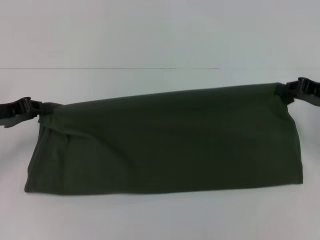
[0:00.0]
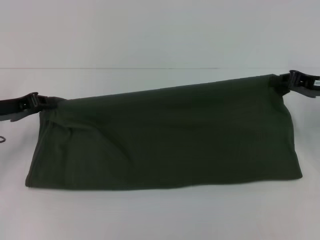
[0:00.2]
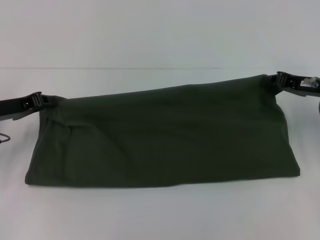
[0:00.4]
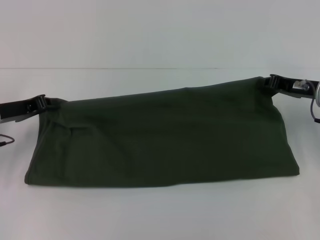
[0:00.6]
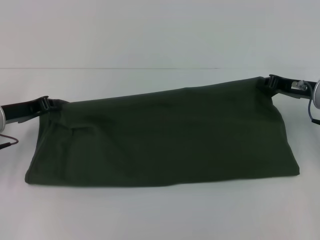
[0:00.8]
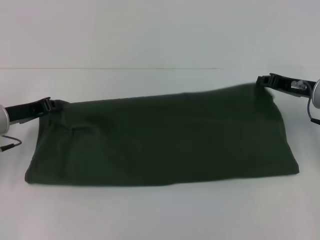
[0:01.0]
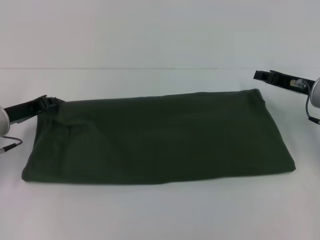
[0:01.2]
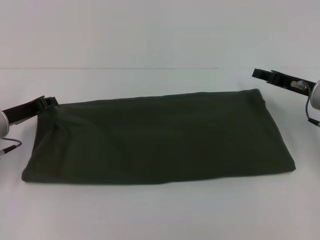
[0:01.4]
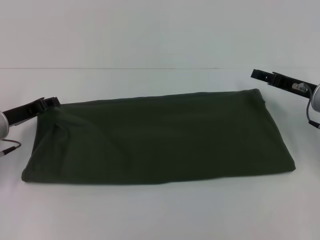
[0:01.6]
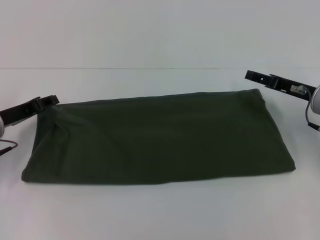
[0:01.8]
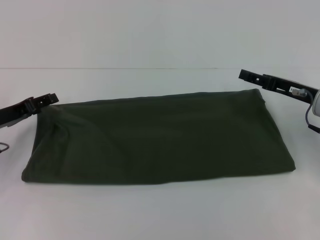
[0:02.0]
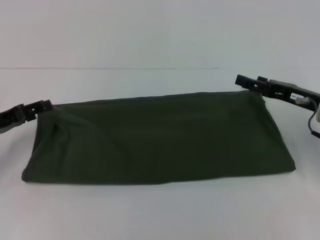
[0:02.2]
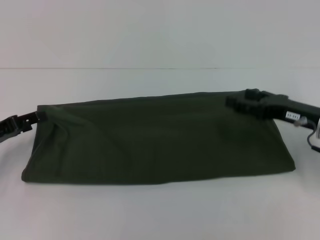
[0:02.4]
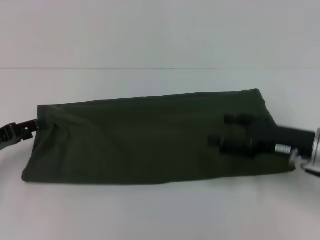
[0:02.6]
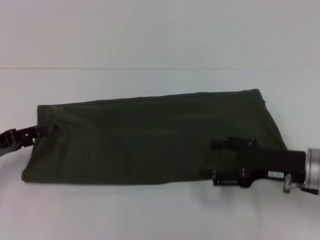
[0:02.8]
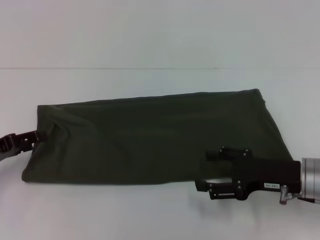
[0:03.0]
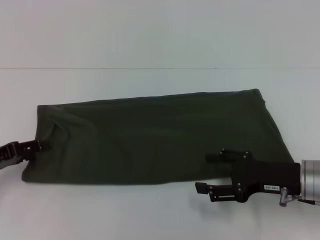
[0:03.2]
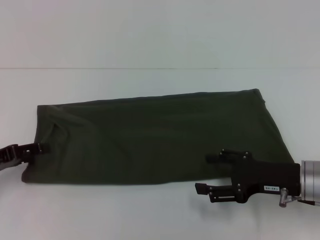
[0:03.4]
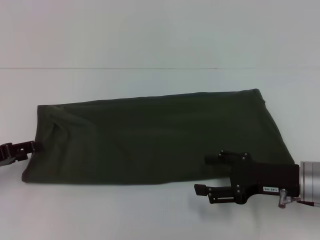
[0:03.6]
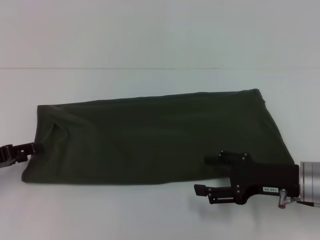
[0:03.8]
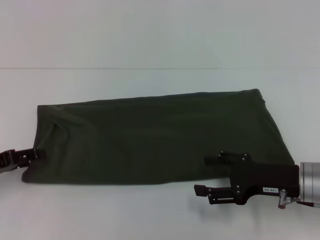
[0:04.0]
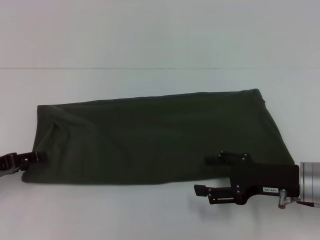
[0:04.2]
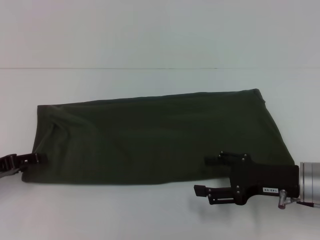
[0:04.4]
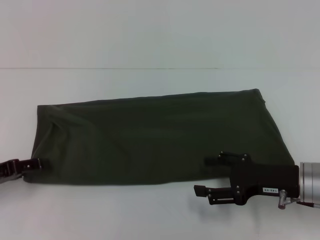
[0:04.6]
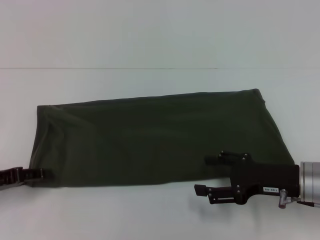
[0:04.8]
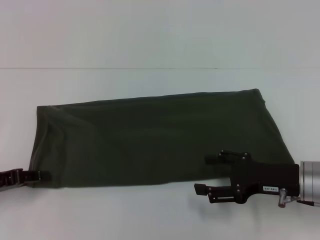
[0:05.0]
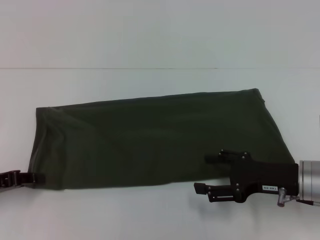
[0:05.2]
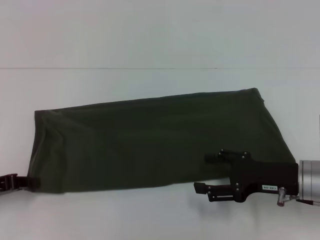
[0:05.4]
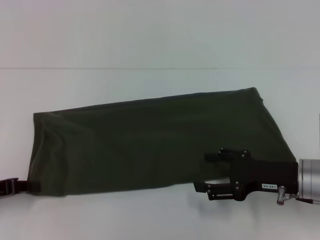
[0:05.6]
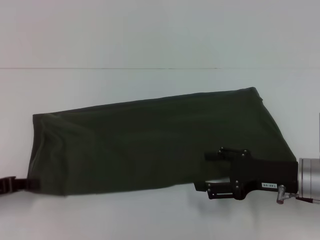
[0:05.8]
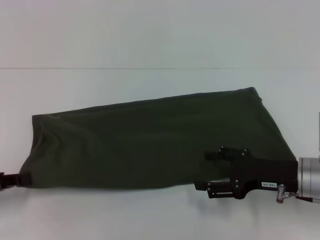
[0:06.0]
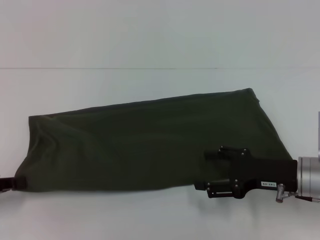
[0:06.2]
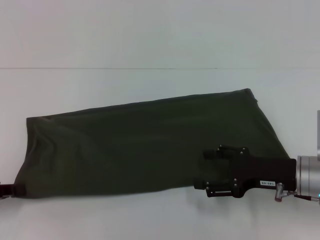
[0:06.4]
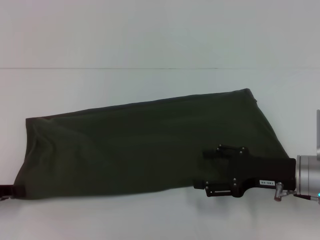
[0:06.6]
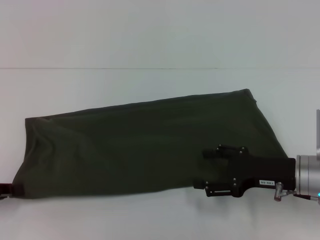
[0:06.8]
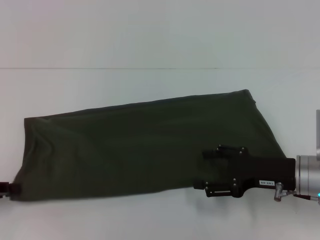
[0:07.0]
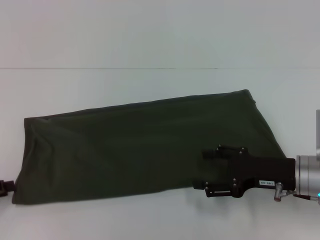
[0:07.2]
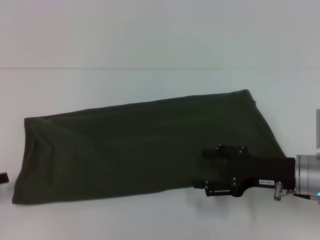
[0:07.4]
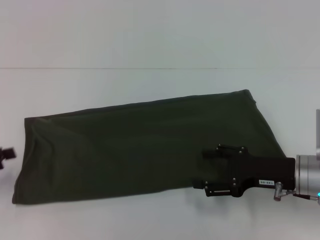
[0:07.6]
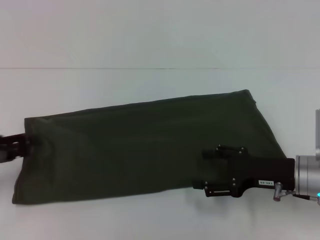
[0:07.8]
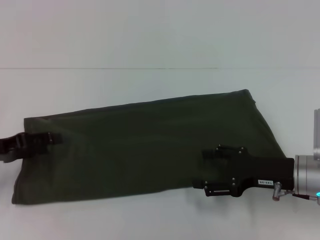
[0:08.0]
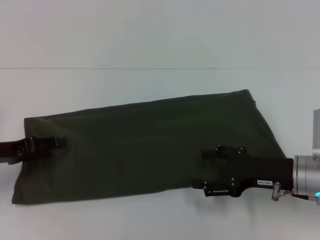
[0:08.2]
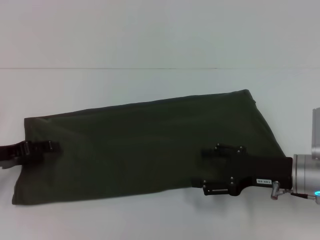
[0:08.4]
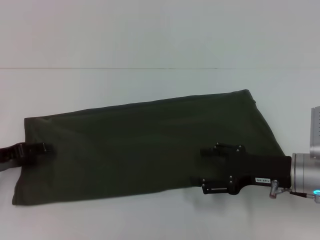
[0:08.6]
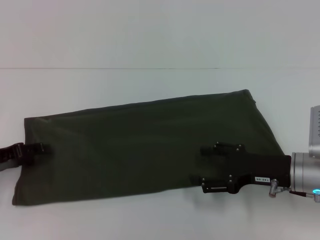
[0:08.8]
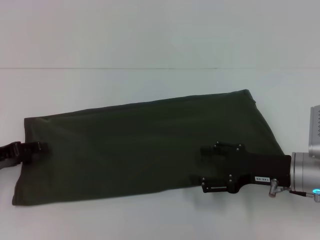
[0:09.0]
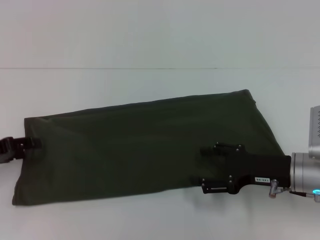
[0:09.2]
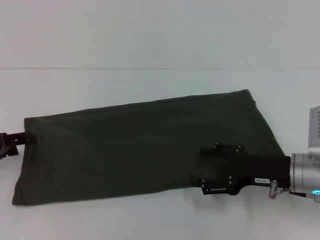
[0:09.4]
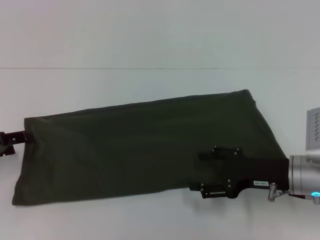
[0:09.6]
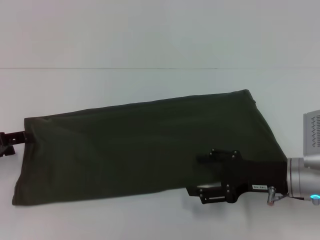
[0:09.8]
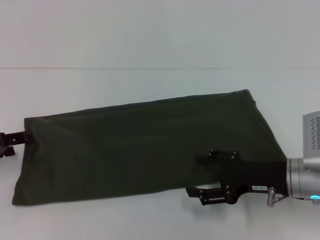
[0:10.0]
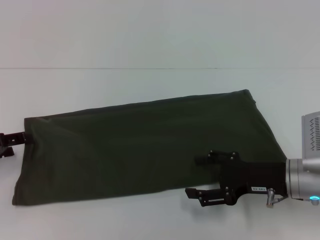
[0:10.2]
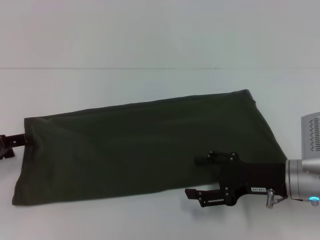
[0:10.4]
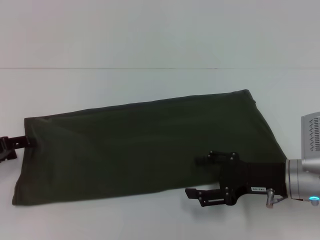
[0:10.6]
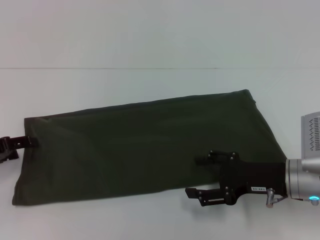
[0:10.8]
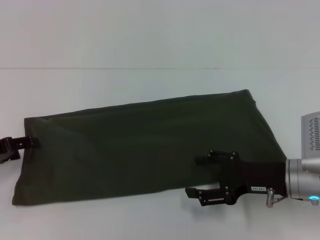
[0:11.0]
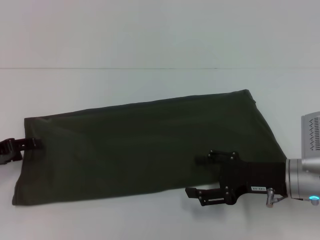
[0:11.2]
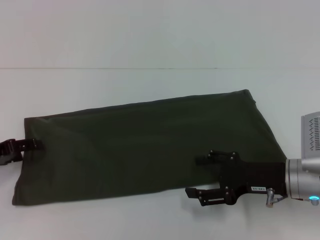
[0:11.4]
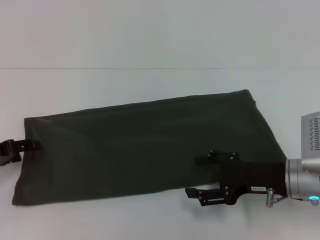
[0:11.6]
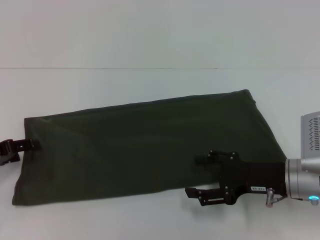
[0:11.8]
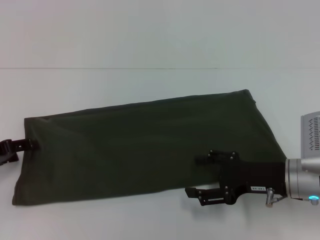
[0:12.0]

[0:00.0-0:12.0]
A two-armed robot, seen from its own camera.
Step, 0:00.0 to 0:01.6: Fold the clothes with your right hand.
0:00.0 to 0:01.6: The right gripper moves some 5 cm, and opens; the left gripper ends up about 5 cm from where it was.
0:01.6 to 0:03.0: The left gripper heads backward and to the left, covering roughly 10 cm, and opens its fingers. Meanwhile the right gripper shifts some 10 cm backward.
0:03.0 to 0:04.4: There are only small adjustments of the grippers.
0:04.4 to 0:06.0: The left gripper closes its fingers.
0:06.0 to 0:07.6: The left gripper opens up.
0:07.6 to 0:09.0: The left gripper travels forward by approximately 5 cm.
0:09.0 to 0:12.0: The grippers make only small movements.

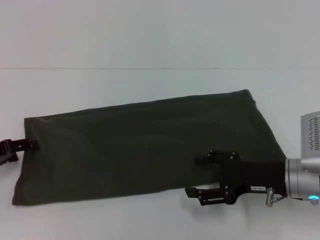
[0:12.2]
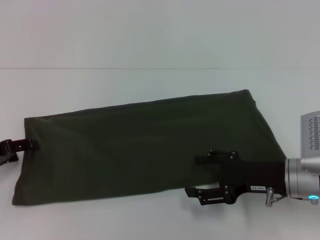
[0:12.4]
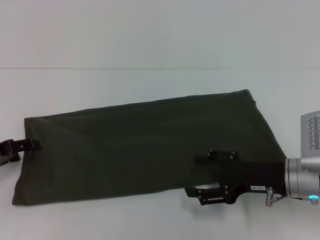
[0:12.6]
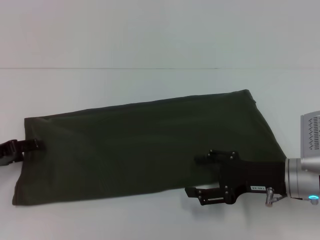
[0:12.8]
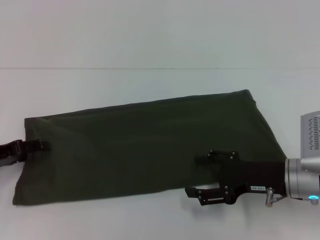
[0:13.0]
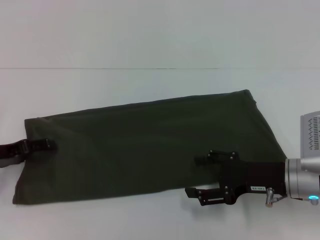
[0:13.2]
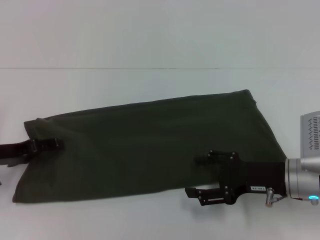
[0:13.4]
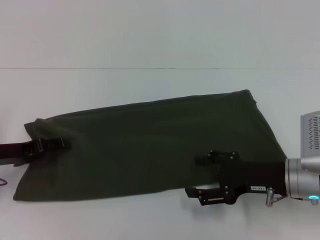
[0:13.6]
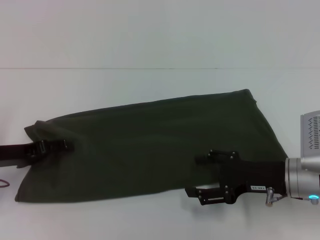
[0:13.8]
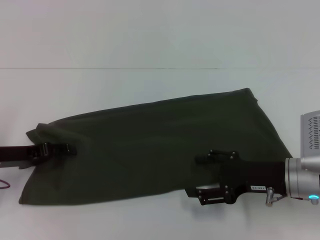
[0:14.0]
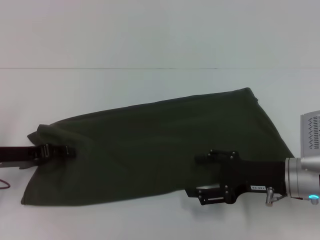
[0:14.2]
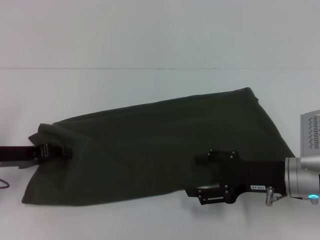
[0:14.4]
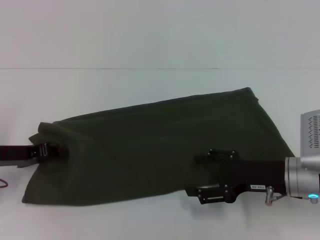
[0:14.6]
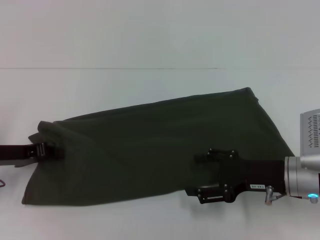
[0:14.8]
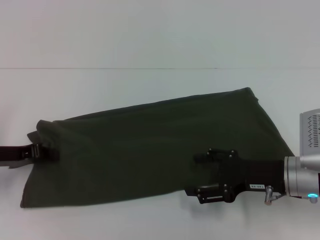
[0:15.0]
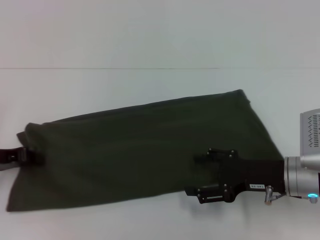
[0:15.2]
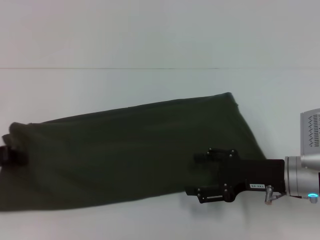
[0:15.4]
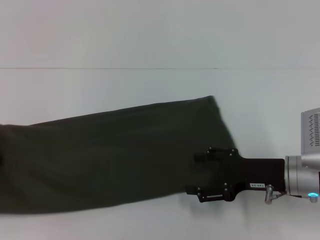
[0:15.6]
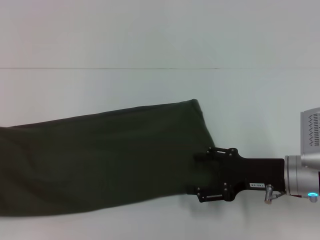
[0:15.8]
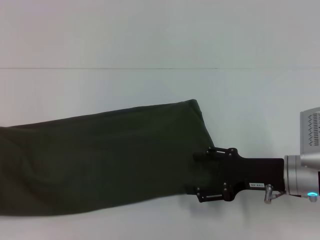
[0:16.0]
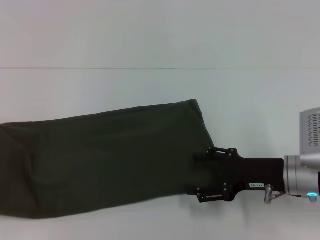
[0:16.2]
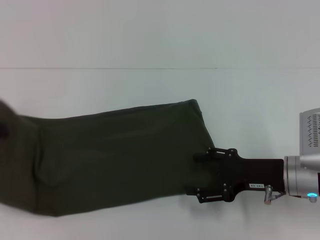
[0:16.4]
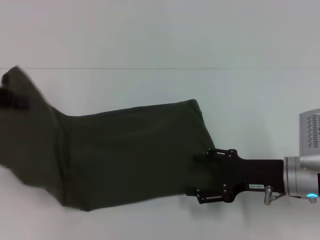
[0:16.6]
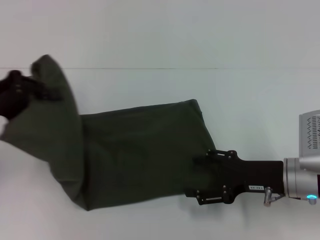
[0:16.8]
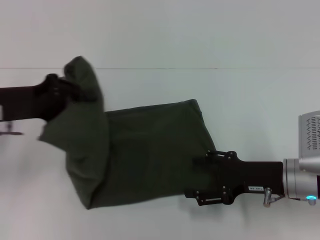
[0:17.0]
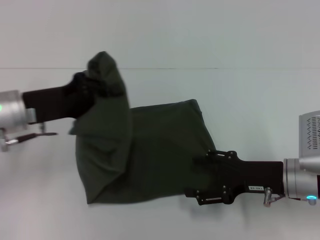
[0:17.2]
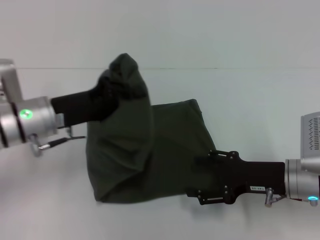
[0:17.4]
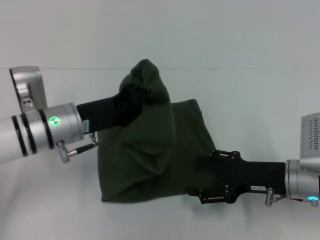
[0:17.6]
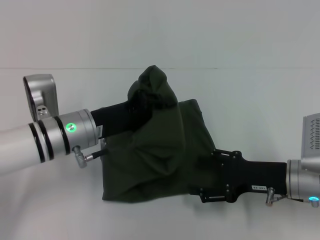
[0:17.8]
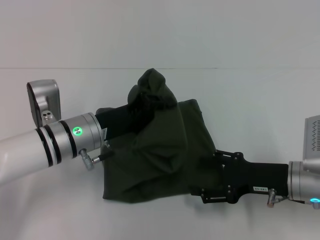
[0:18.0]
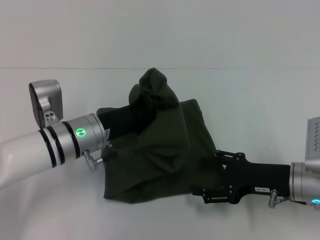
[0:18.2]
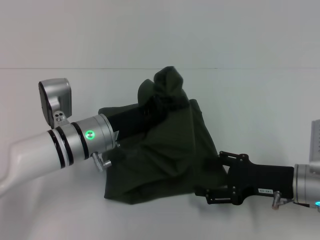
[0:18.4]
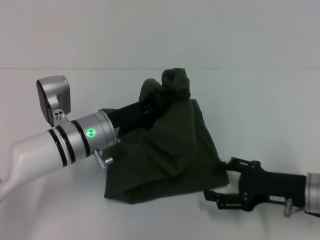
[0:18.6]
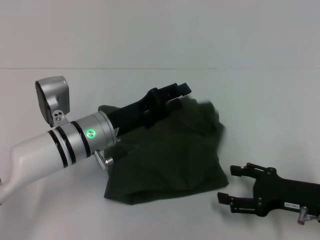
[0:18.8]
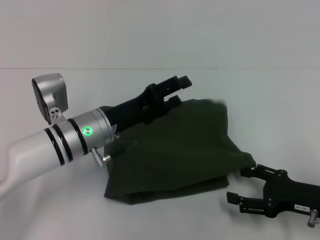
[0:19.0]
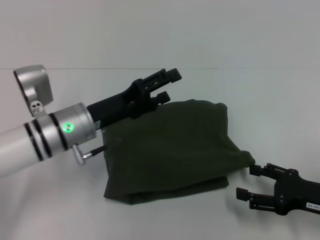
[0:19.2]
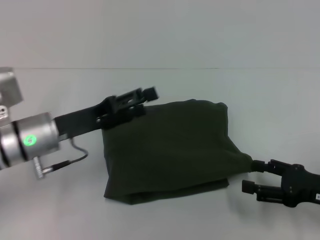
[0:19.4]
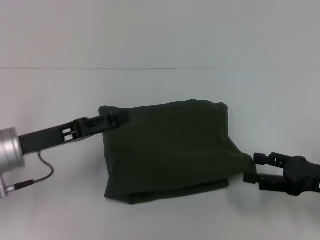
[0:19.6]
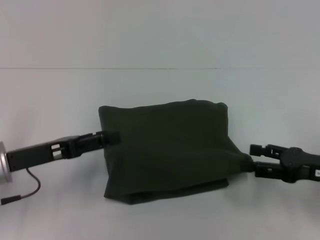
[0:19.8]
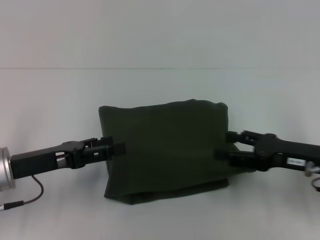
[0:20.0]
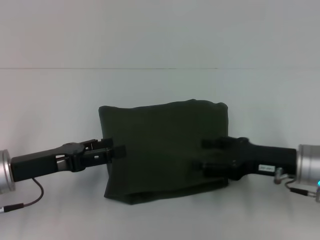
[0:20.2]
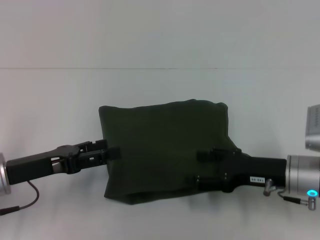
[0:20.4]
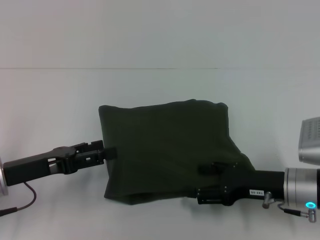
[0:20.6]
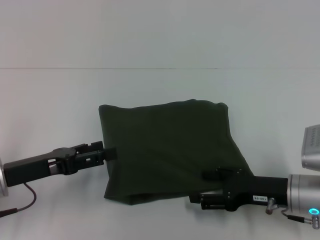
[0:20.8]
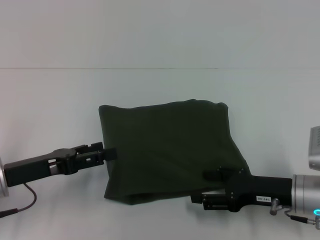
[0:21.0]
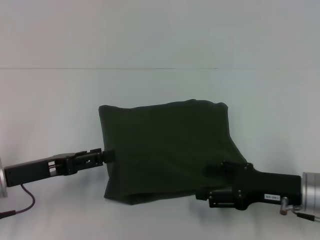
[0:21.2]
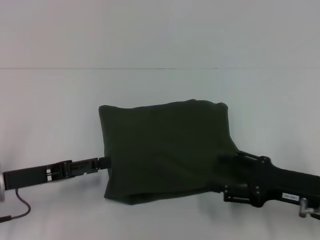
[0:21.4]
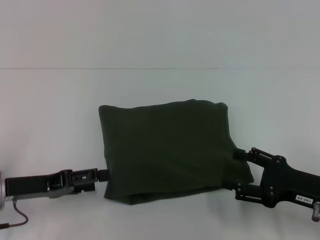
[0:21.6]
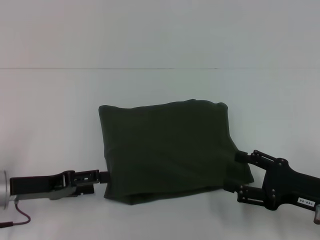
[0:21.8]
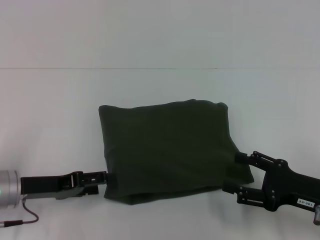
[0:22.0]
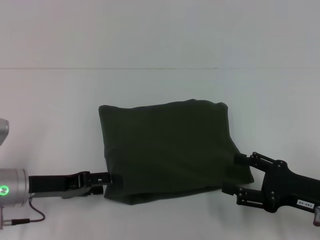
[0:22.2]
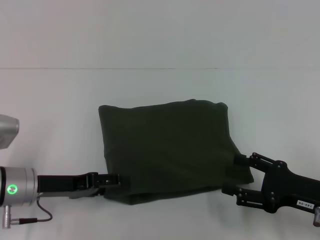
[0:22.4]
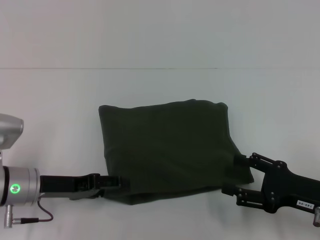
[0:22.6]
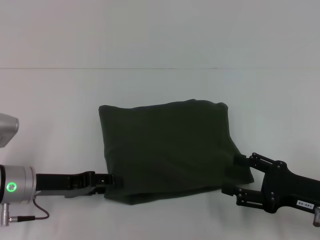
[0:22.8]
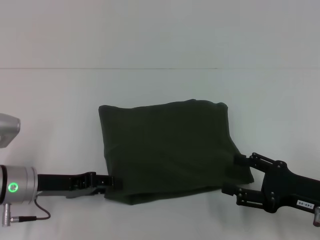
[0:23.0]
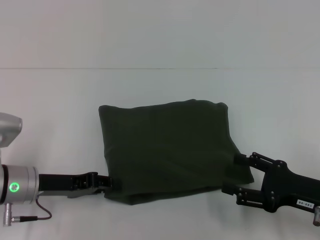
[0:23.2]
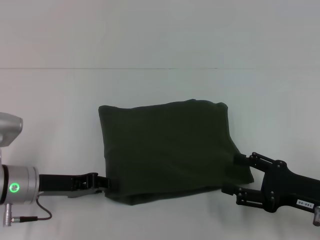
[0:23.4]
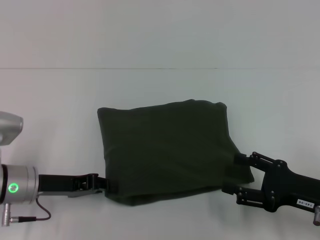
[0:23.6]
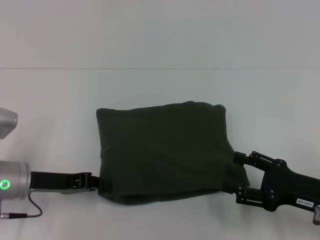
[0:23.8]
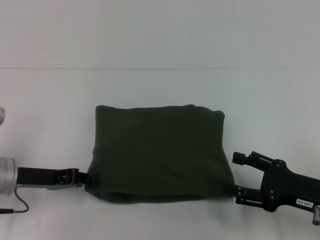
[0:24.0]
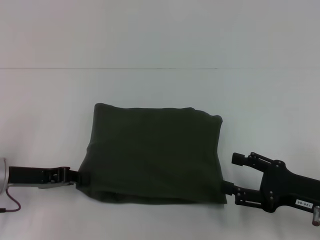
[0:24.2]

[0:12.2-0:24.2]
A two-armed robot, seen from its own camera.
Step, 0:12.2 to 0:19.2: Fold the clothes with your left hand.
0:12.2 to 0:13.8: The grippers stay close to where they were, moving slightly.
0:13.8 to 0:15.2: The left gripper closes its fingers.
0:15.2 to 0:16.6: The left gripper moves upward, some 10 cm.
0:16.6 to 0:18.2: The left gripper heads to the right and downward, covering some 25 cm.
0:18.2 to 0:19.8: The right gripper is displaced to the right by roughly 5 cm, while the left gripper moves to the left and backward, some 15 cm, and opens its fingers.
0:19.8 to 0:21.2: The right gripper travels to the left by some 5 cm.
0:22.6 to 0:24.2: The left gripper closes.
